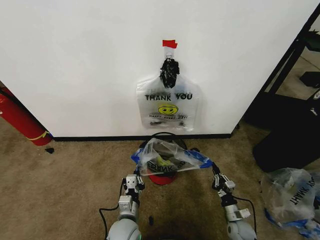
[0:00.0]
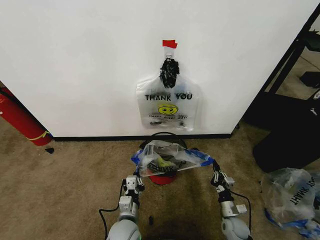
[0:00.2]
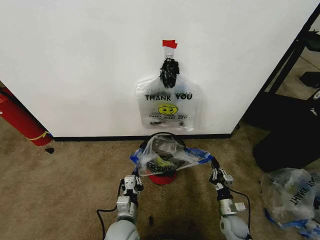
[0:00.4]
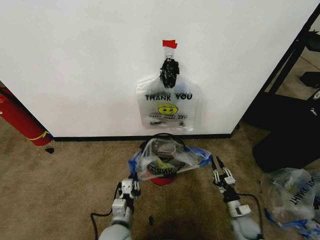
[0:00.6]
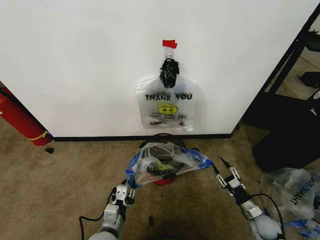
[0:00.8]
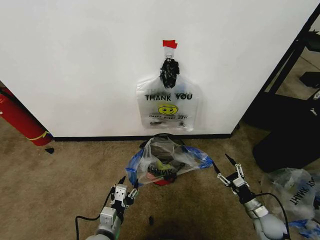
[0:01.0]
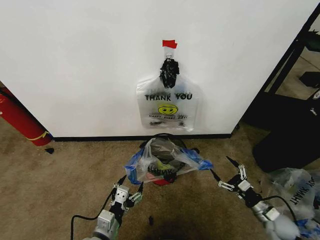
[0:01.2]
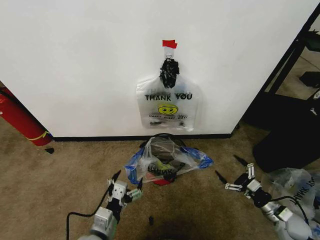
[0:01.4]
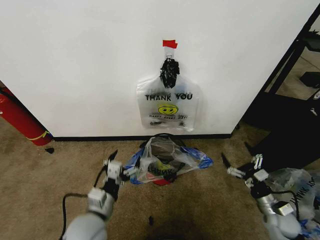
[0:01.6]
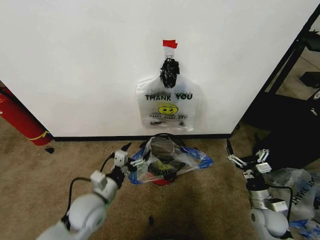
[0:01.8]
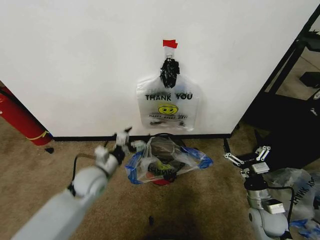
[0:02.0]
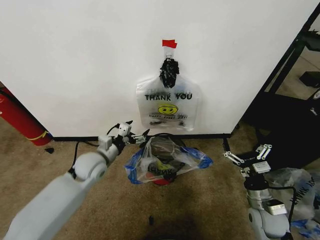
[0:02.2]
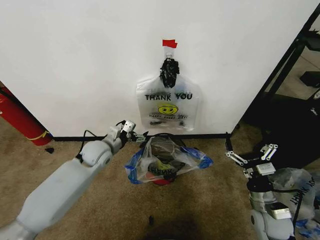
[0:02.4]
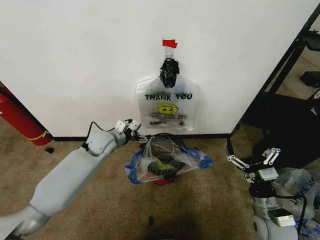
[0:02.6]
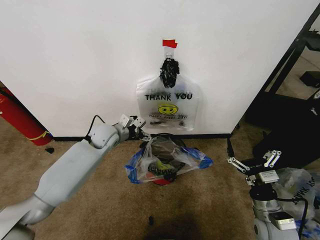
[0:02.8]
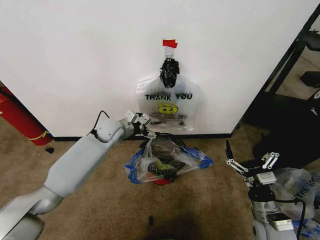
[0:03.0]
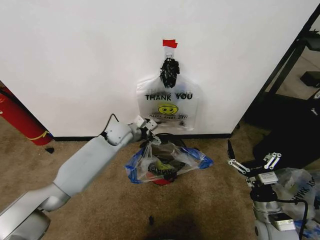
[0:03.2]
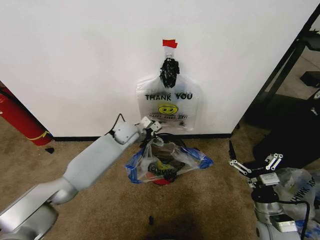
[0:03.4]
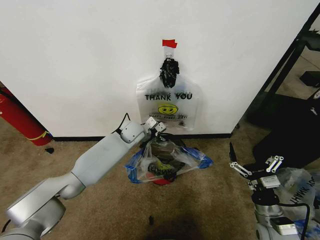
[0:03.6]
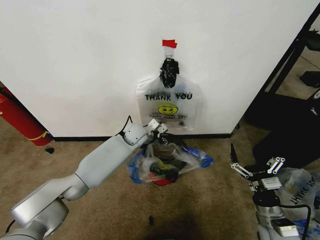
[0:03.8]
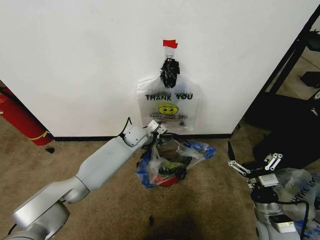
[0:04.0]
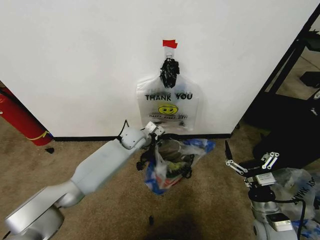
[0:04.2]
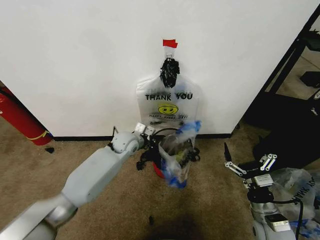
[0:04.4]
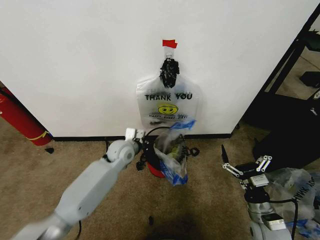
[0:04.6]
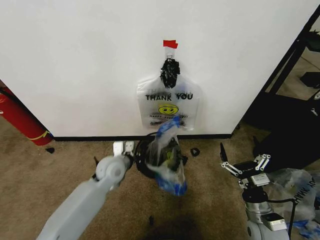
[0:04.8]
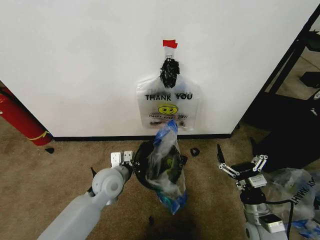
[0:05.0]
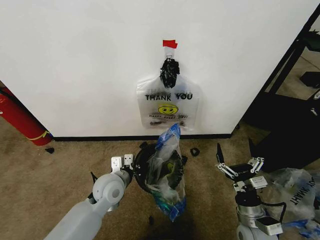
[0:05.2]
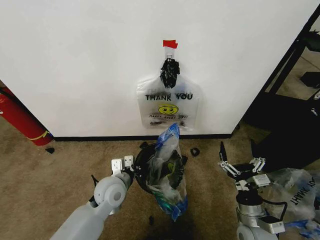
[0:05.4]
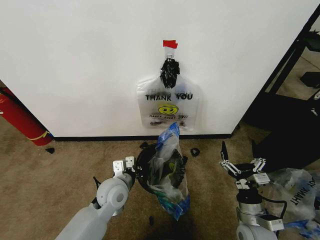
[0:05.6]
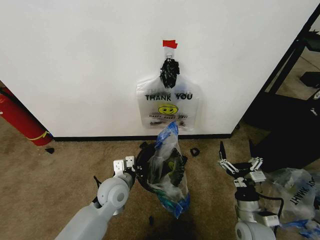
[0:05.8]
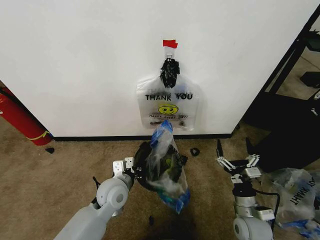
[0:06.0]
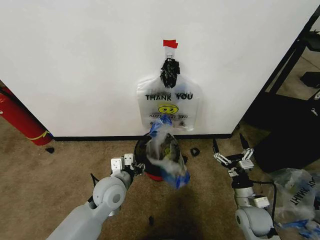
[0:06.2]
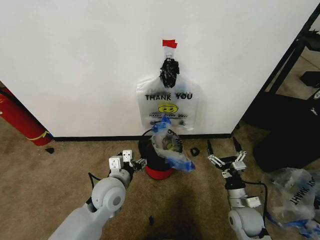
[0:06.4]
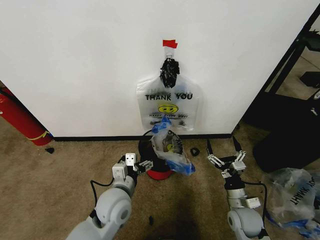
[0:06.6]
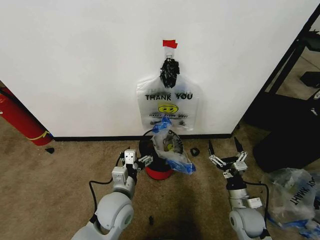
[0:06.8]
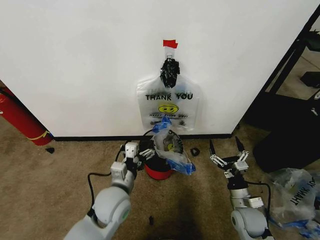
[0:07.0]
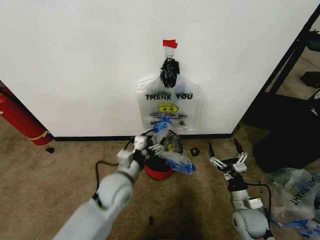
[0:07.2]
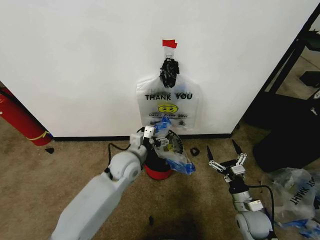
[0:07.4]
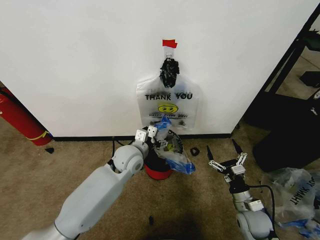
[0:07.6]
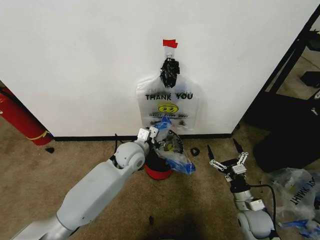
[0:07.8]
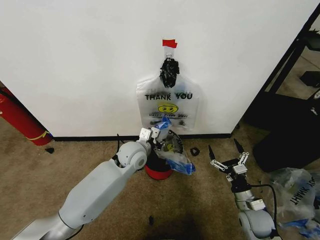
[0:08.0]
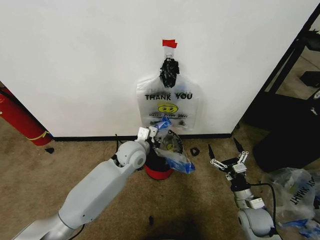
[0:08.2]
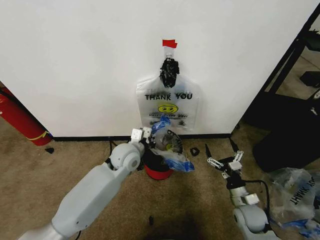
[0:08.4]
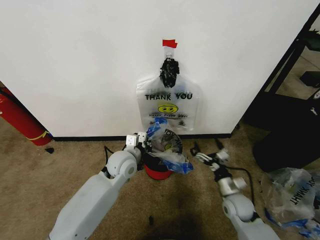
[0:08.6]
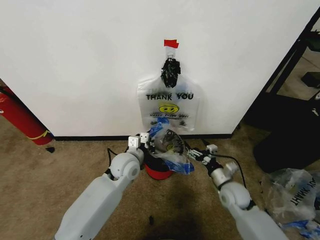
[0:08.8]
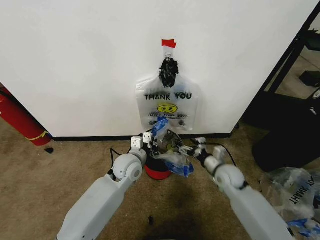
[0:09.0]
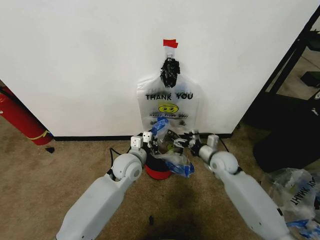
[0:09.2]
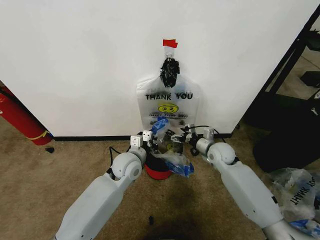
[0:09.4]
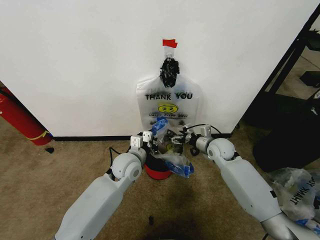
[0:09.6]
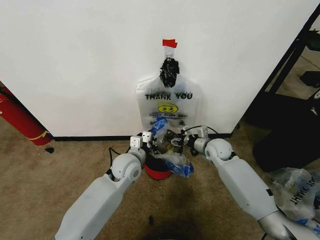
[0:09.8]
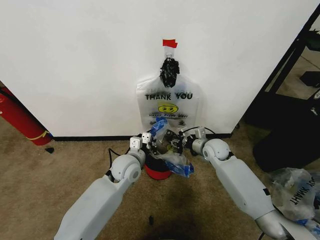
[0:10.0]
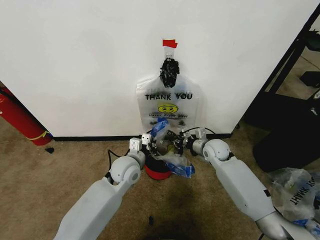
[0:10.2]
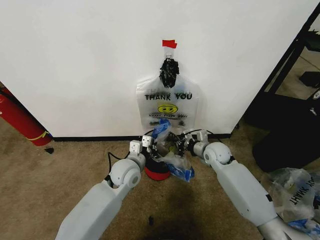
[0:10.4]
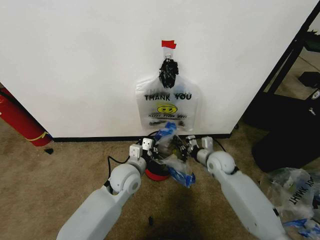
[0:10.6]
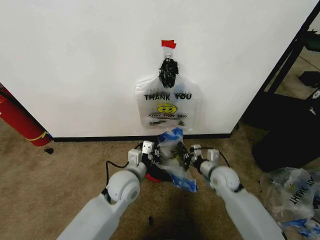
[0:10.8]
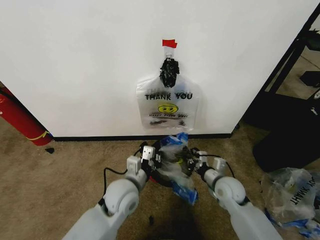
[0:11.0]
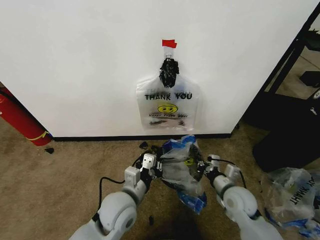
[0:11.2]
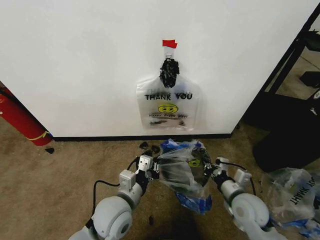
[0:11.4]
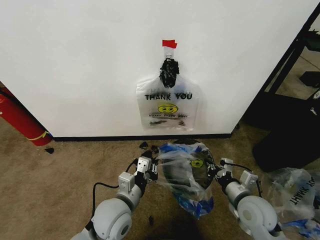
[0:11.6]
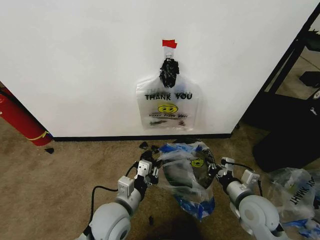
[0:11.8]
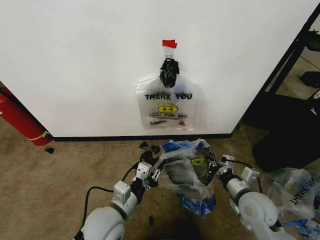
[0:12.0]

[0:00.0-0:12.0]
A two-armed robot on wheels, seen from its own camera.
Task of the whole recording: Pick up the garbage bag from the wall and place it over the trash bin.
0:00.0 to 0:01.6: The left gripper is displaced upward and to the left by approximately 15 cm, and opens its fingers. Meanwhile the right gripper heads upward and to the right, covering some 15 cm, and opens its fingers.
0:01.6 to 0:03.0: The right gripper heads to the left and upward, covering some 10 cm. The left gripper is displaced forward by some 30 cm.
0:03.0 to 0:04.4: The left gripper is displaced downward by roughly 5 cm, and closes.
0:04.4 to 0:06.0: The right gripper shifts by roughly 5 cm, while the left gripper is displaced backward by some 20 cm.
0:06.0 to 0:07.6: The left gripper shifts approximately 10 cm forward and upward, and opens up.
0:07.6 to 0:09.0: The left gripper closes. Meanwhile the right gripper heads forward, upward and to the left, covering about 15 cm.
0:09.0 to 0:10.4: The right gripper shifts roughly 10 cm forward, and closes up.
0:10.4 to 0:12.0: Both grippers travel together backward, roughly 20 cm.

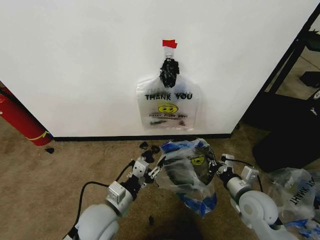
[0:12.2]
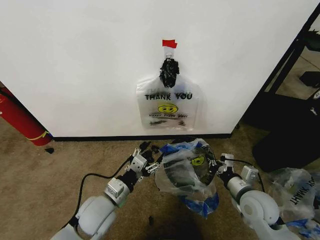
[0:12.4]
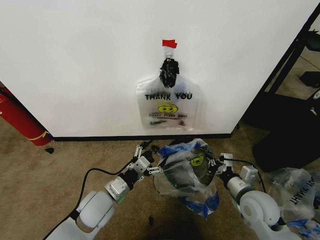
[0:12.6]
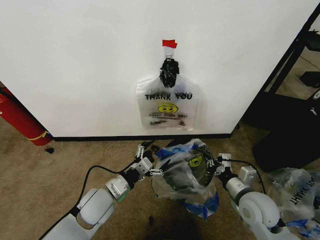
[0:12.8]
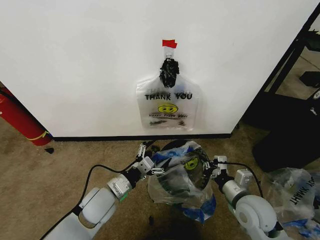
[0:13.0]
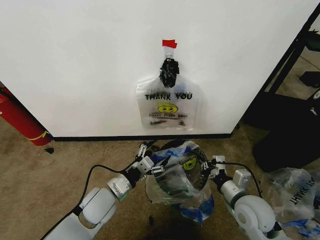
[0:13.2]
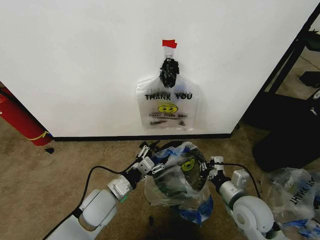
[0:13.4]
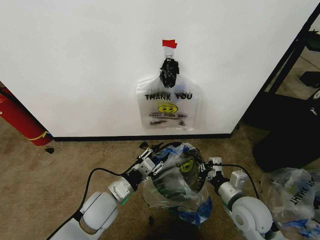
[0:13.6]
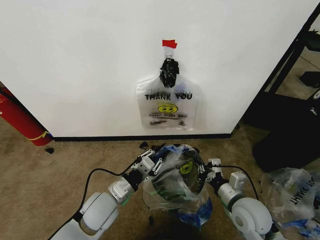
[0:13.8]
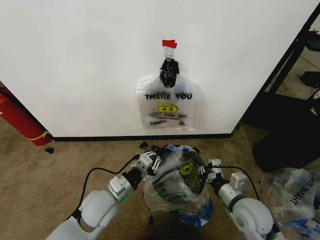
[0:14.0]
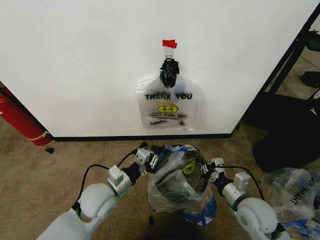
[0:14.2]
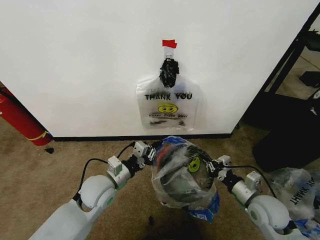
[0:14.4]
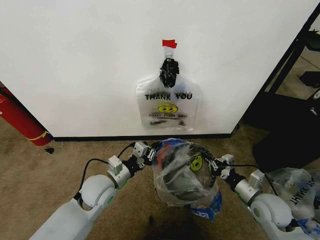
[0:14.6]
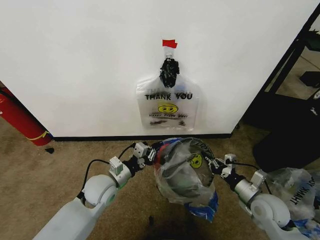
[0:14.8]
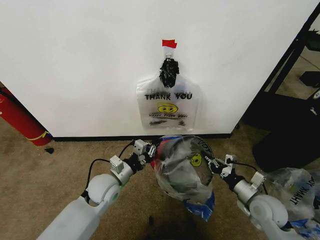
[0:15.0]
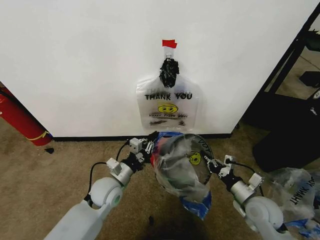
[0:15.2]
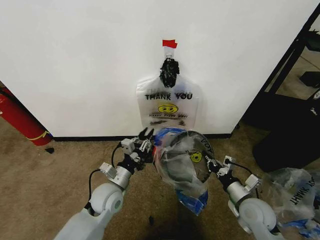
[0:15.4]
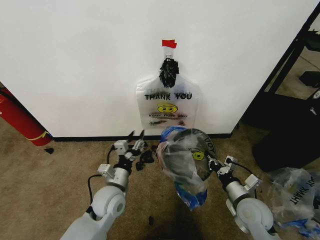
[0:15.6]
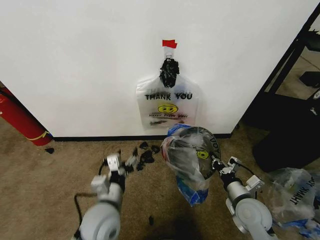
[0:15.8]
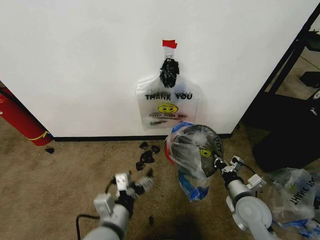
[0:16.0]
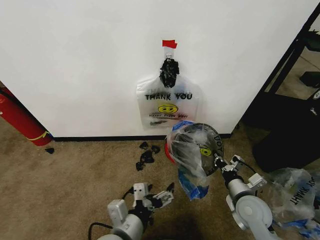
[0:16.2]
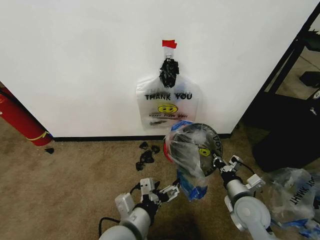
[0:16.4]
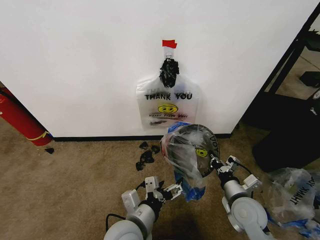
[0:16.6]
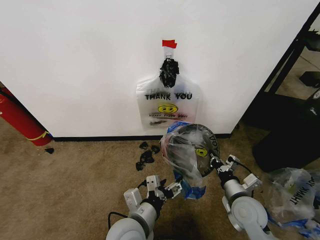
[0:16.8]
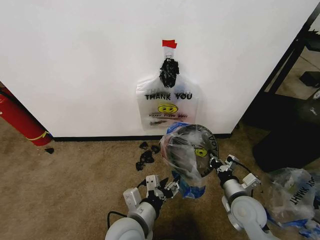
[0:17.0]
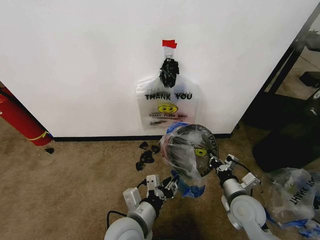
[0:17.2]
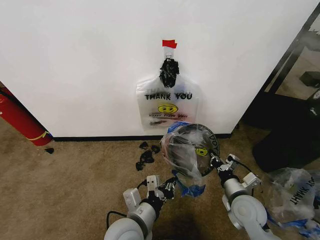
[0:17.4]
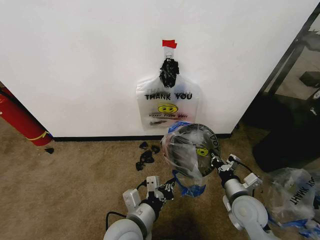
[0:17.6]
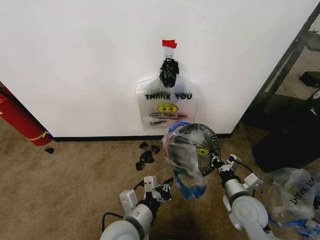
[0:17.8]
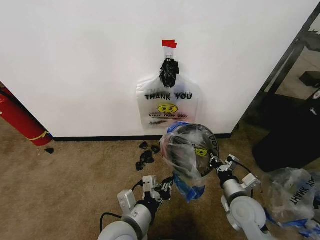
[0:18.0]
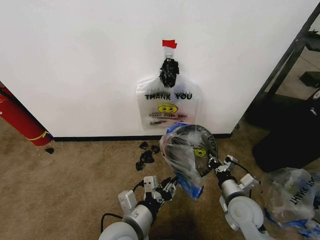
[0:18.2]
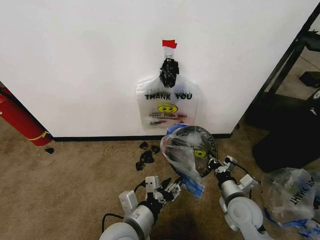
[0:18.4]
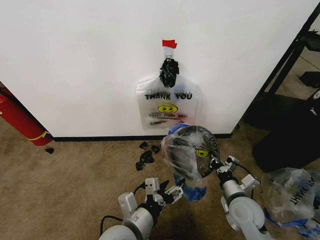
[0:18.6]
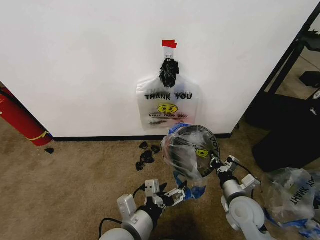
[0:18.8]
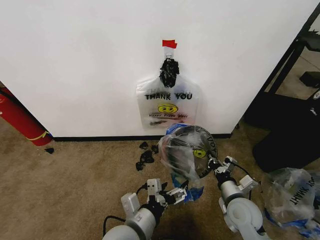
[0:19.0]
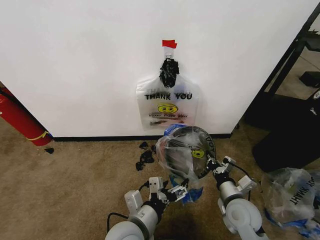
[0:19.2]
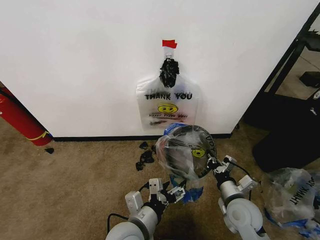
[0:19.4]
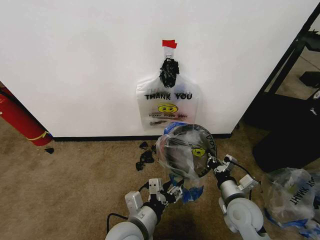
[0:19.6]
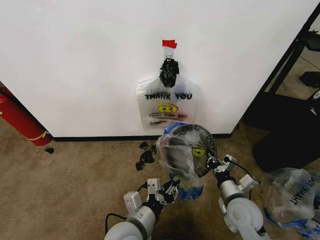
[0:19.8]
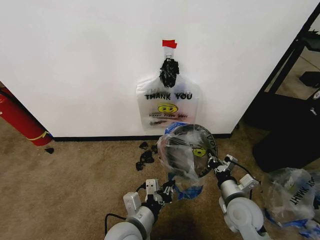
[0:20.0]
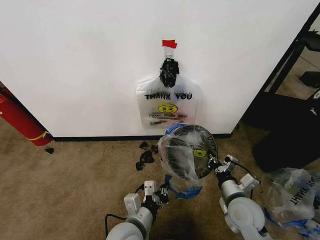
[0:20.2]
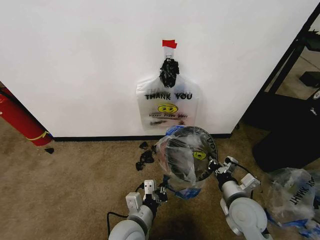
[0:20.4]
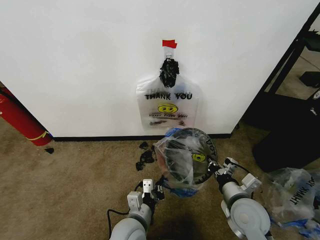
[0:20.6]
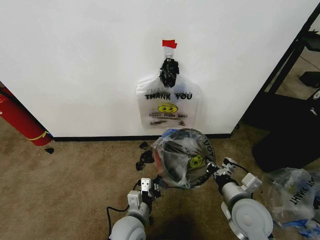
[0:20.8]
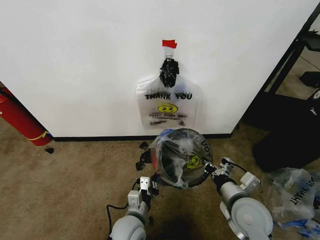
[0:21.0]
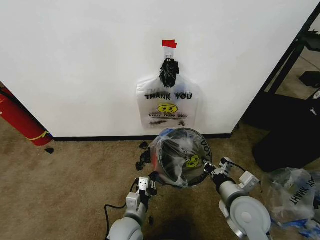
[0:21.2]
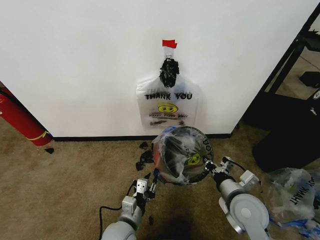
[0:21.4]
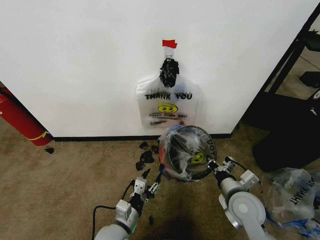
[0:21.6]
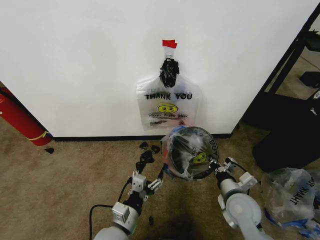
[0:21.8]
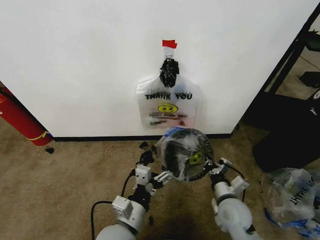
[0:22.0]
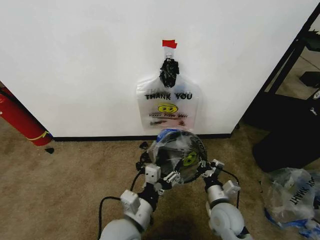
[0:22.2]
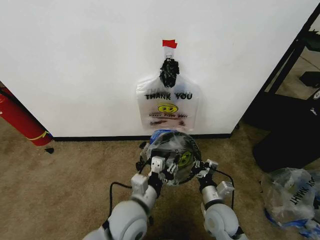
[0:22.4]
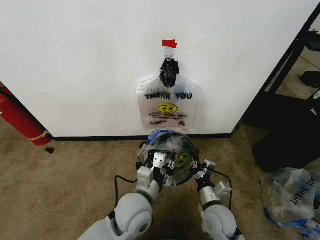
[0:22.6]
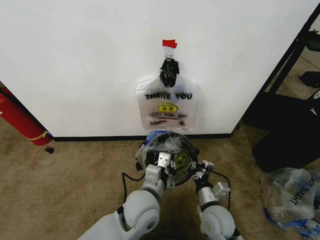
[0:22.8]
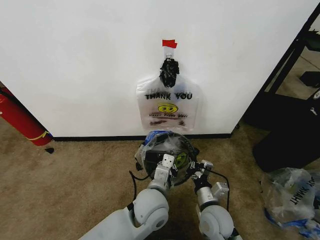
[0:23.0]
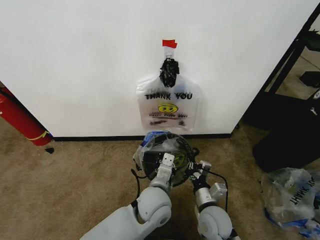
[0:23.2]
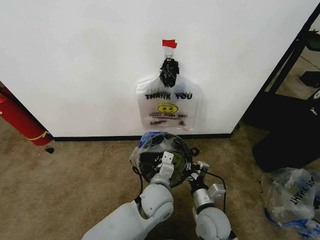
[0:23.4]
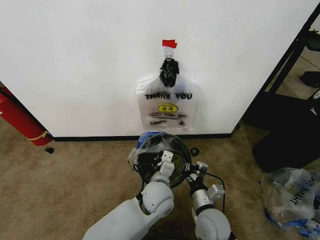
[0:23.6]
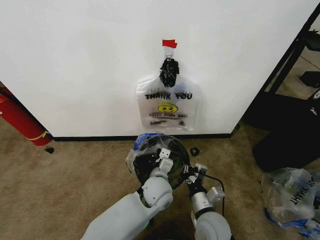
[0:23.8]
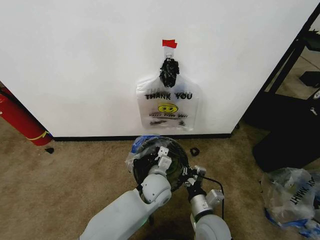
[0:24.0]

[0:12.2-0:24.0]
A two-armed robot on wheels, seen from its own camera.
Task of the whole recording: Pick up the garbage bag from the wall and place it over the trash bin.
0:12.2 to 0:13.6: The left gripper opens, then closes again.
0:13.6 to 0:15.2: The left gripper travels forward by approximately 5 cm, while the right gripper travels to the right by some 5 cm.
0:15.2 to 0:16.6: The right gripper heads to the left, covering approximately 5 cm; the left gripper goes roughly 15 cm backward and to the right, and opens.
0:16.6 to 0:18.2: The left gripper closes up.
0:18.2 to 0:19.6: The left gripper opens, then closes once more.
0:19.6 to 0:21.0: The right gripper travels upward by some 5 cm, while the left gripper goes about 10 cm downward, and closes up.
0:21.0 to 0:22.6: The right gripper goes roughly 10 cm downward and to the left; the left gripper is displaced upward by approximately 10 cm, and opens, then closes again.
0:22.6 to 0:24.0: The right gripper shifts by about 5 cm. Meanwhile the left gripper travels forward, downward and to the right by roughly 10 cm.
